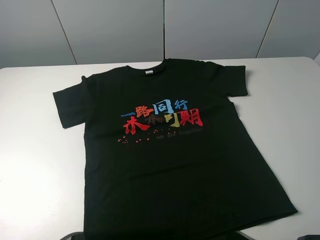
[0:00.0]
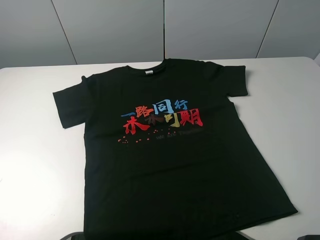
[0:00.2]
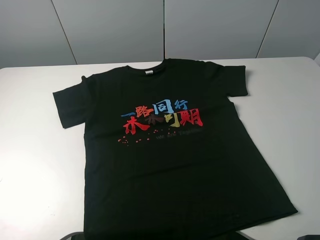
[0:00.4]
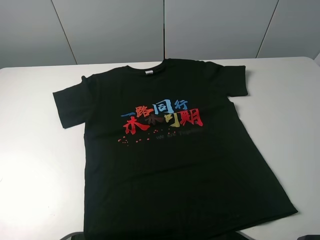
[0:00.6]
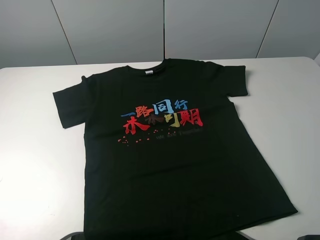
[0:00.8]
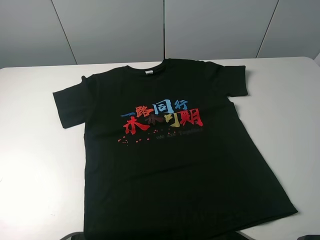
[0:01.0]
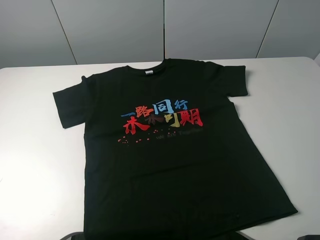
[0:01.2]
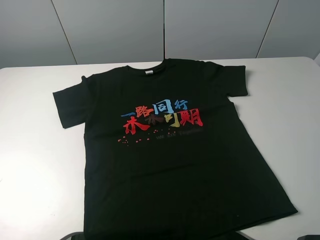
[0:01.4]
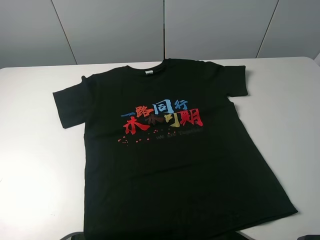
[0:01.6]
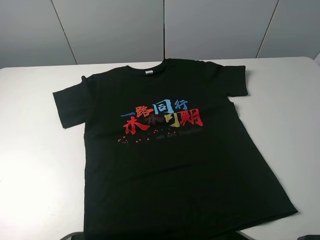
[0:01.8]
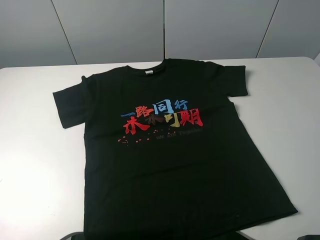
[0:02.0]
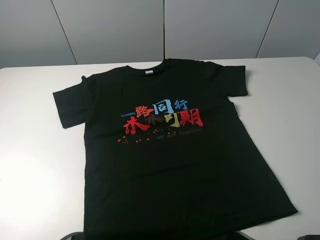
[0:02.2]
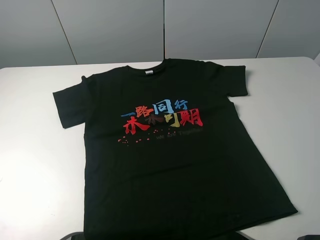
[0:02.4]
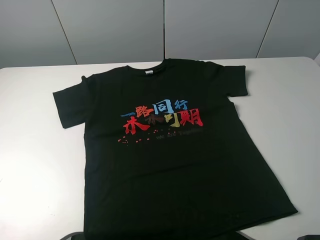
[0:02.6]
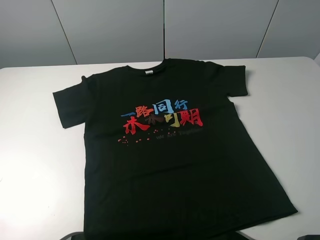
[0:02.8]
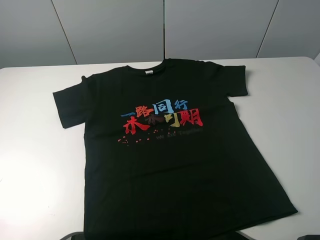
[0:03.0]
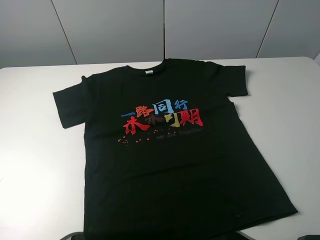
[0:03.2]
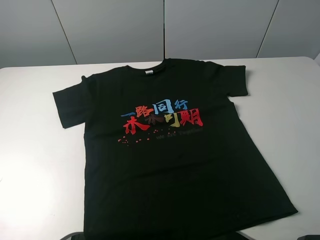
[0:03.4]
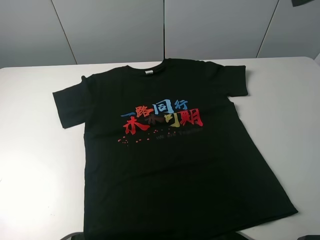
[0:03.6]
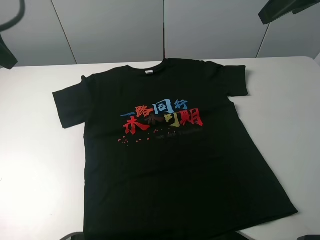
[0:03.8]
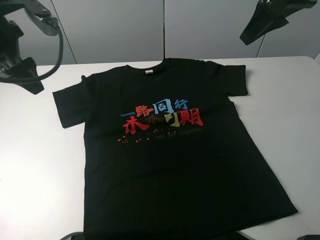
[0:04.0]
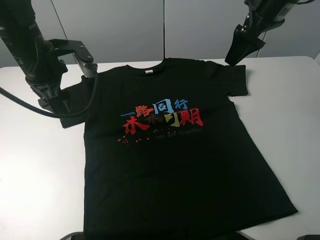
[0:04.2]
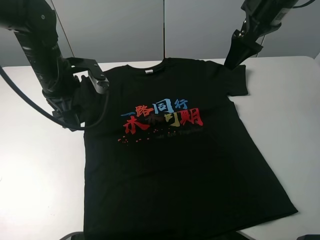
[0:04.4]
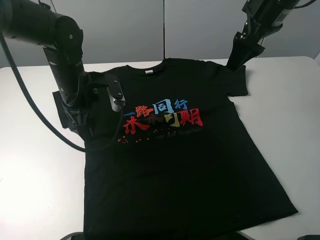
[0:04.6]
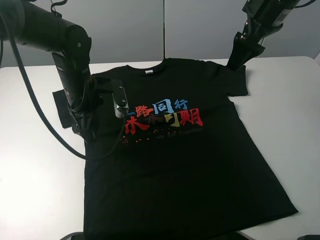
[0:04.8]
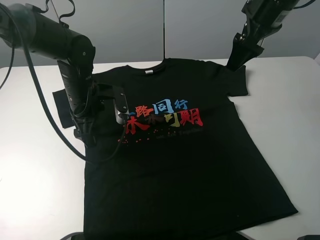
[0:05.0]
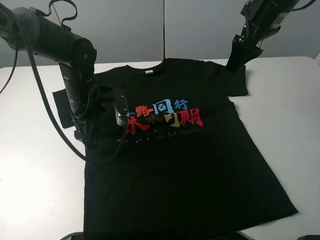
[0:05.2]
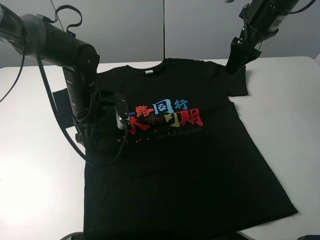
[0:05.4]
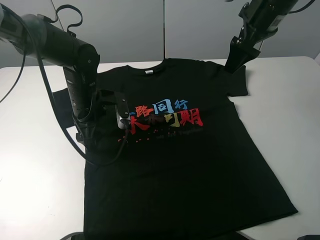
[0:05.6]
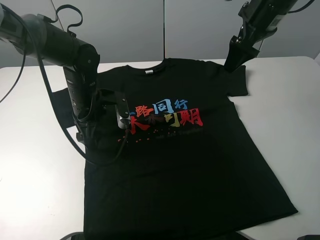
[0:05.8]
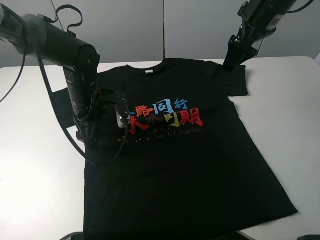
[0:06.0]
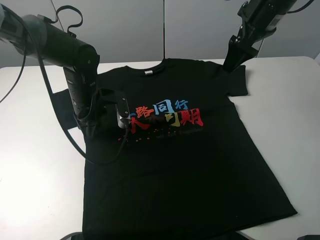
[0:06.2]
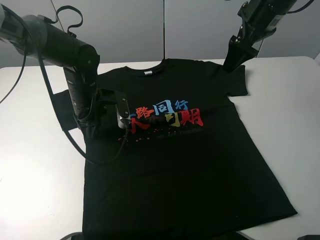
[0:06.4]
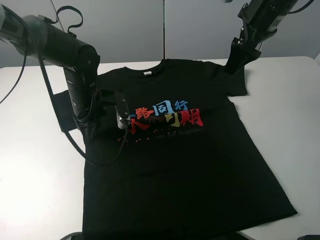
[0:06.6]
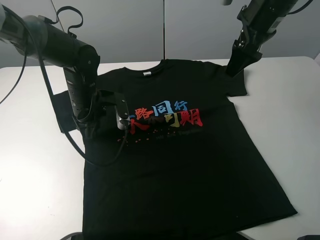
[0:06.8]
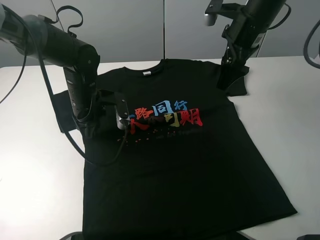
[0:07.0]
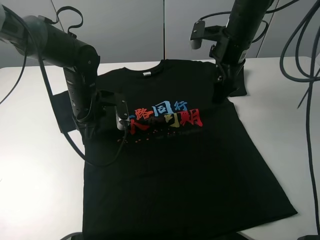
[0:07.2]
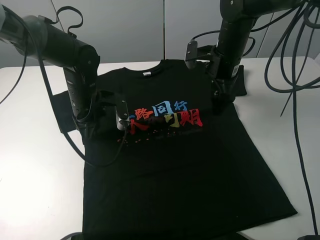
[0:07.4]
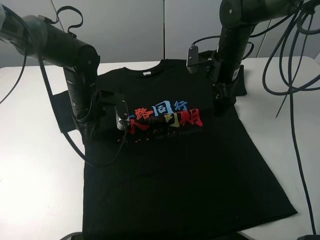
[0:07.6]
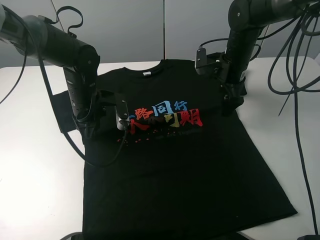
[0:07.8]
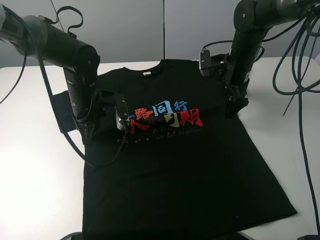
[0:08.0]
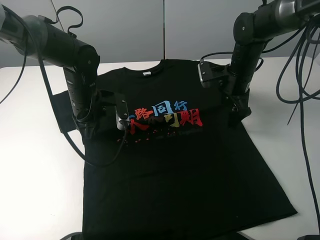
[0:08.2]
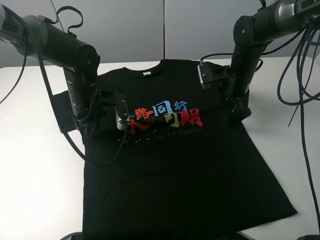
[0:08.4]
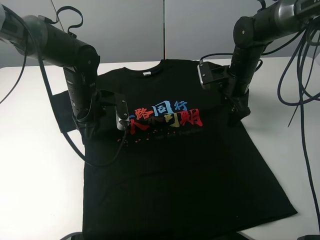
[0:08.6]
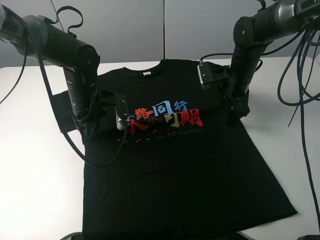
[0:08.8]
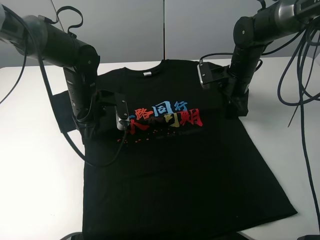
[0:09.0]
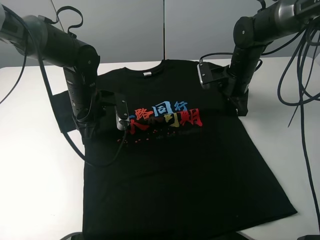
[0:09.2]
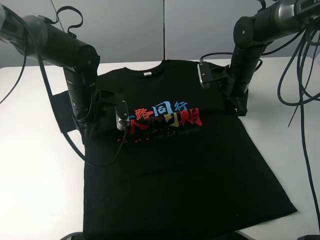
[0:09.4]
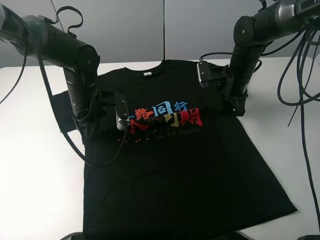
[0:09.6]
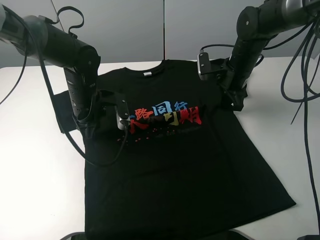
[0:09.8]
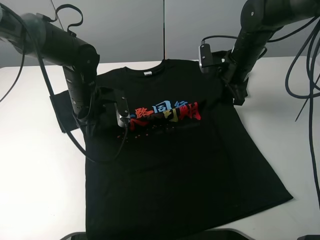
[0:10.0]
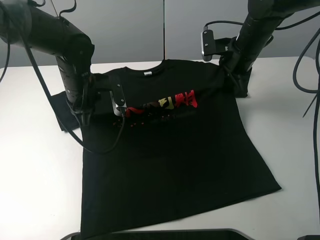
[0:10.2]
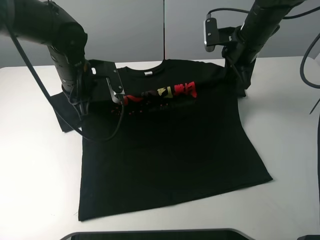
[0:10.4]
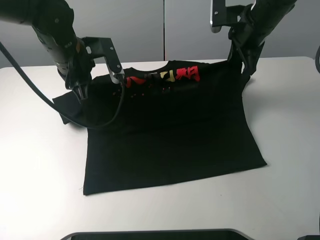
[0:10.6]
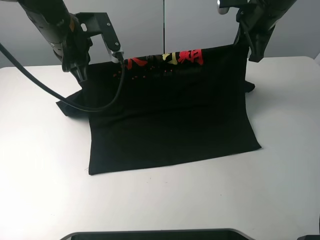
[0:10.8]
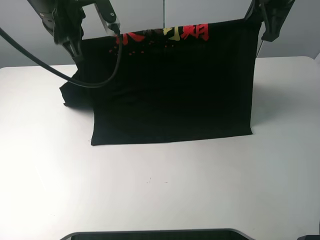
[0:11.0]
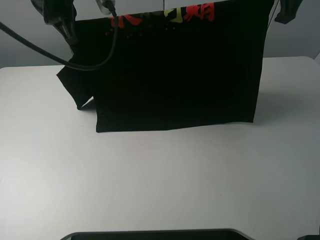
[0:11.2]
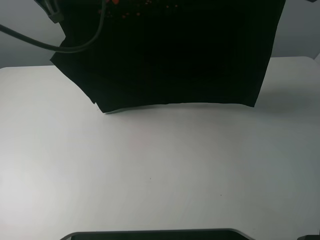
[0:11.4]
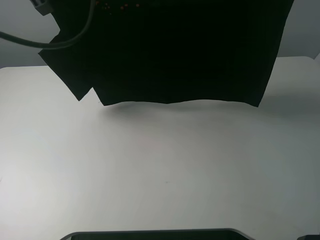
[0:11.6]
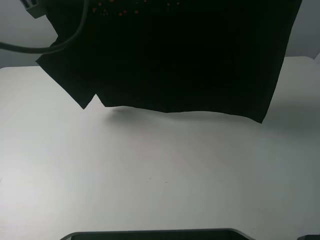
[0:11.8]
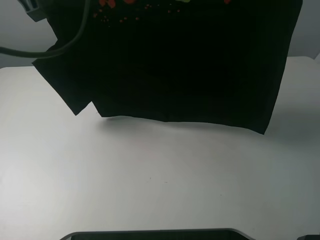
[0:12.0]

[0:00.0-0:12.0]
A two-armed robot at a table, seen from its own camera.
Task of the whole recording: fold the clothes on the table.
Step, 0:00.0 to 0:06.4: Lift the black T-shirt with the left gripper.
0:00.0 to 0:01.6: Both grippers stay put.
0:03.0 to 0:04.4: The right gripper shifts about 30 cm forward, while the left gripper travels forward, downward and to the right by about 35 cm.
0:04.4 to 0:06.0: The left gripper heads downward, covering some 5 cm.
0:06.0 to 0:07.6: The right gripper goes approximately 15 cm downward. Meanwhile the left gripper closes its fingers.
0:07.6 to 0:09.0: The right gripper closes its fingers.
0:09.0 to 0:10.4: Both grippers move upward, about 10 cm.
0:10.4 to 0:12.0: The left gripper heads upward, covering roughly 20 cm. The right gripper goes some 25 cm upward and backward.

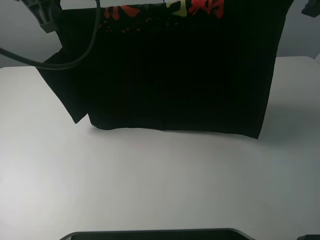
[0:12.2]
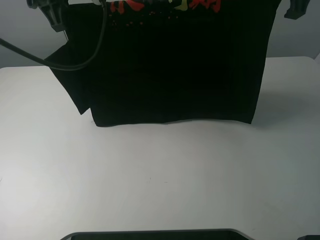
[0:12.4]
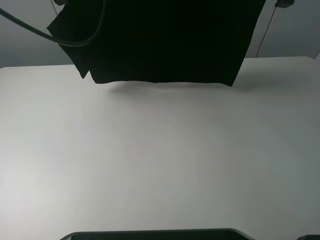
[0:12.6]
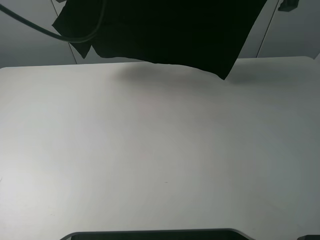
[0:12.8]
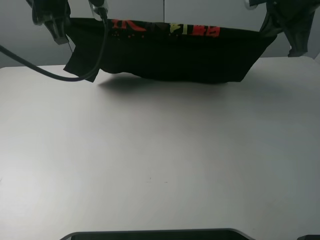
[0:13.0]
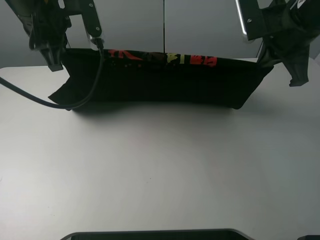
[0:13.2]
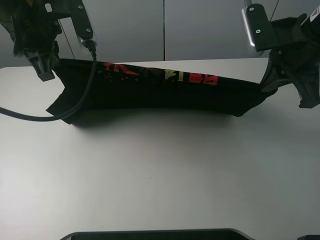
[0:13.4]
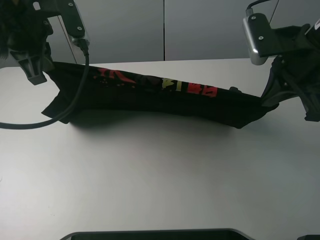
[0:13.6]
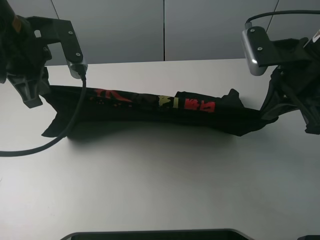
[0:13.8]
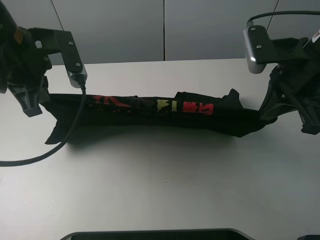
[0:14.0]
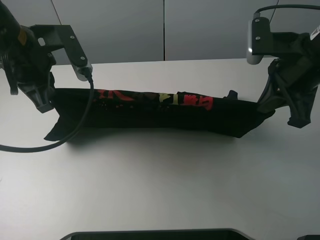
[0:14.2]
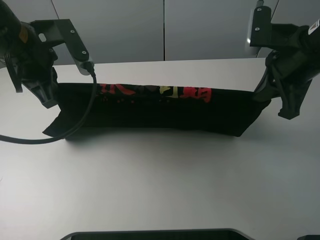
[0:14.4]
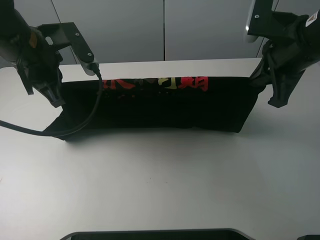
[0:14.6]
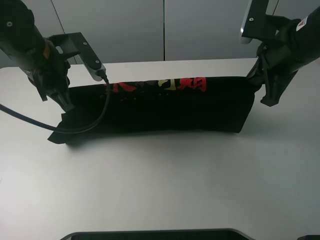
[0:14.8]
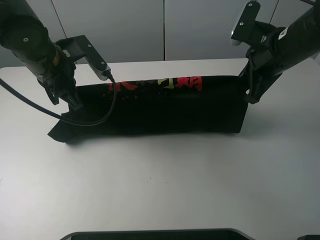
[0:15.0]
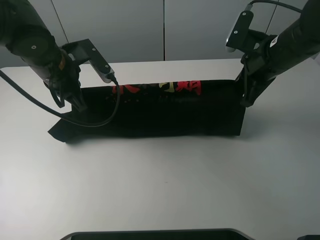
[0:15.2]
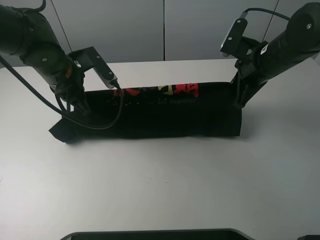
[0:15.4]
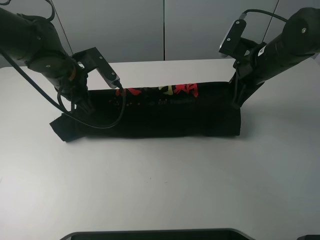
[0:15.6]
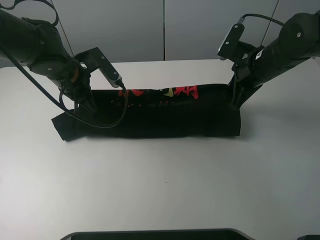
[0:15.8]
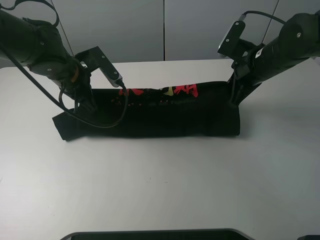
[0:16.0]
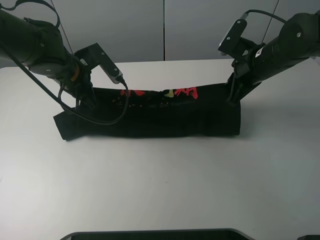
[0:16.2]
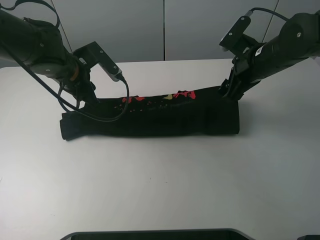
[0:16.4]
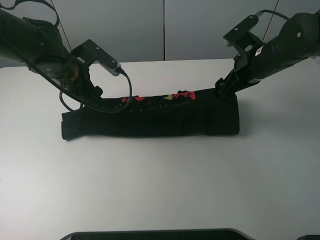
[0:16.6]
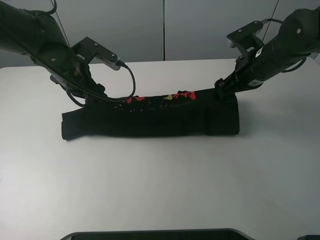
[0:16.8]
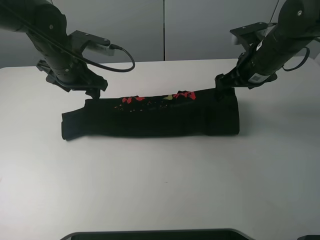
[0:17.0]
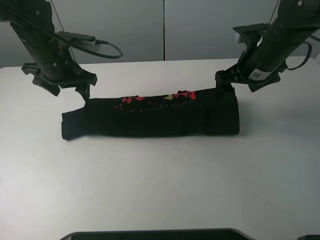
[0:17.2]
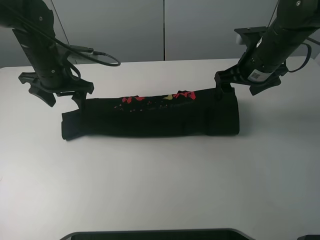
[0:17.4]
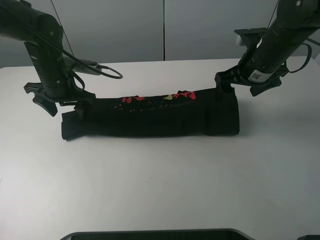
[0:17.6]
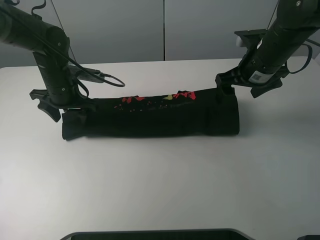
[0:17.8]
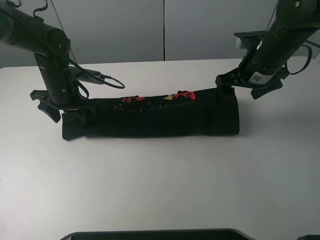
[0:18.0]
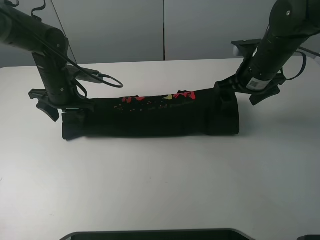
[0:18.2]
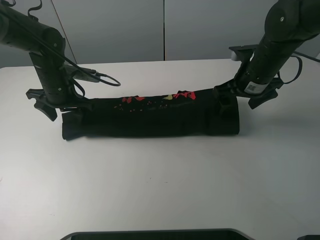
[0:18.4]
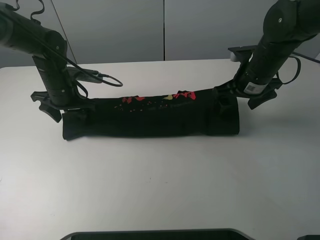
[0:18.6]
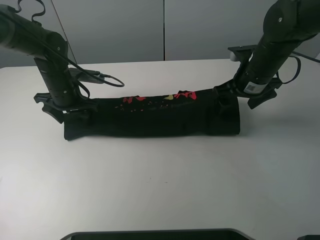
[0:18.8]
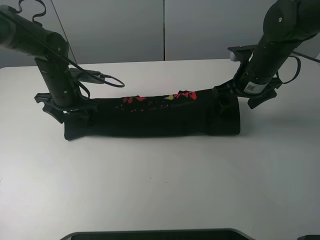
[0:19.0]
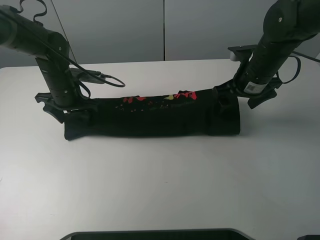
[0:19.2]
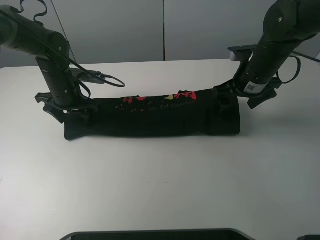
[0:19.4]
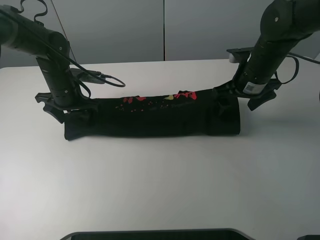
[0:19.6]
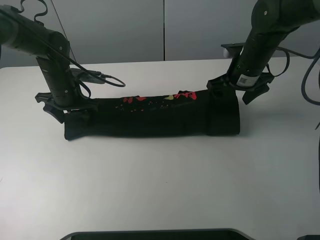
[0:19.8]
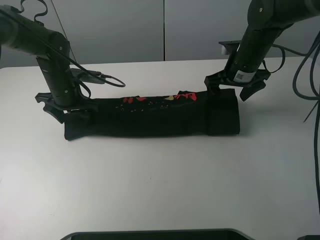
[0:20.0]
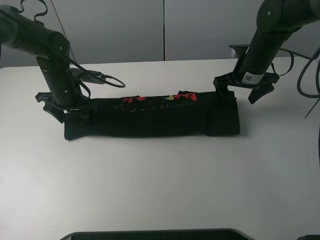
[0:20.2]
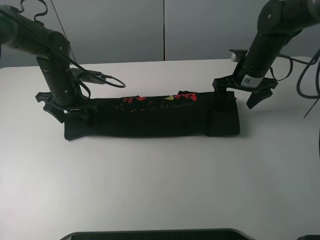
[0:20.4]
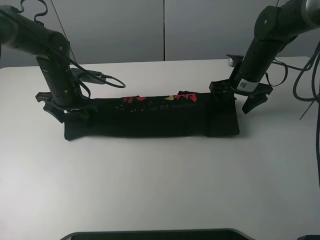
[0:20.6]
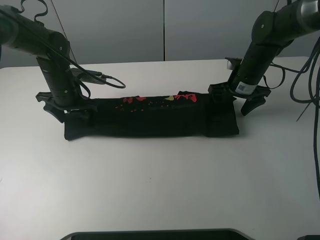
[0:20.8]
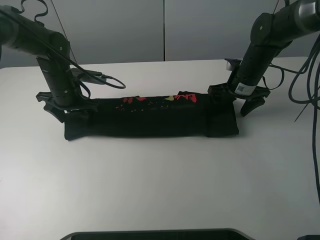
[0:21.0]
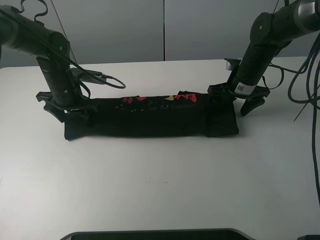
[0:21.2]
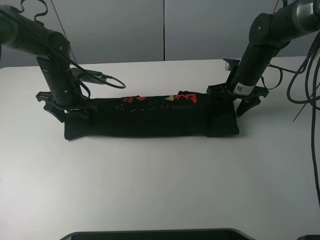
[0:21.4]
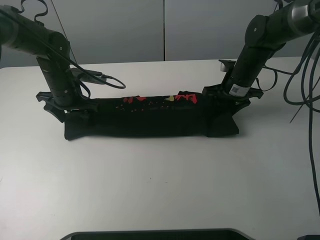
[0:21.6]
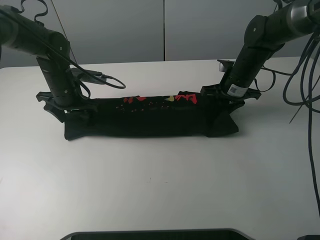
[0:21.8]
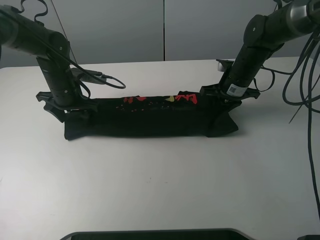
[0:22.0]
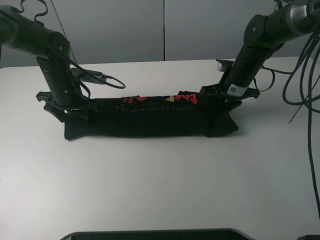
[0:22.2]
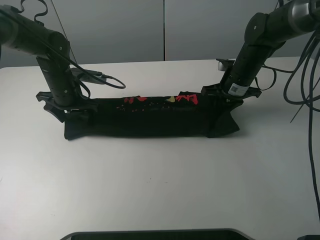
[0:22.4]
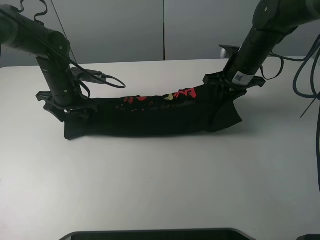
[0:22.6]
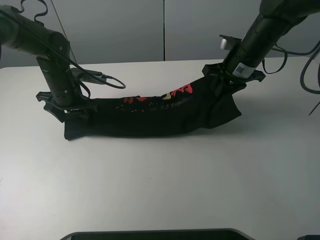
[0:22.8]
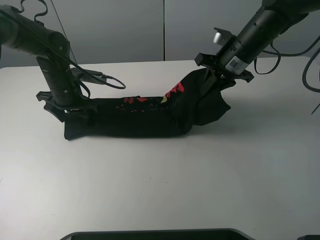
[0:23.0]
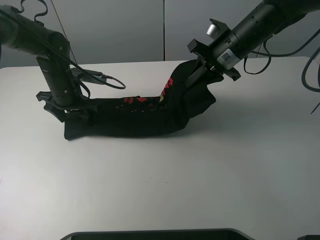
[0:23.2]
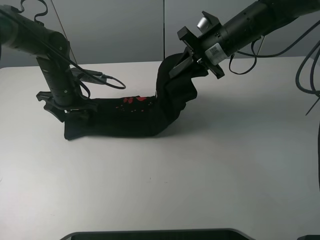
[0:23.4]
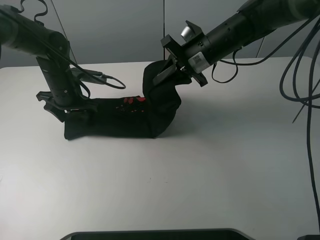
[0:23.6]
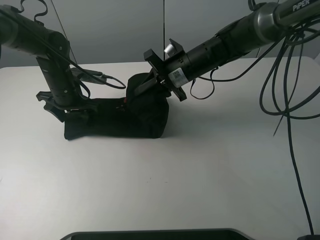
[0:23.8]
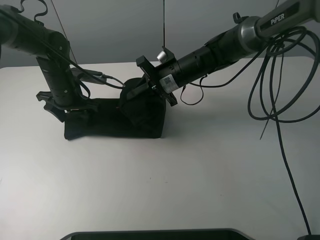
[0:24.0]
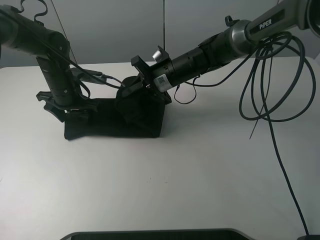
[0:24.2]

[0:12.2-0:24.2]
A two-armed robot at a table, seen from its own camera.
Task of the whole recording: fold the clothes on the table.
Step, 0:12.2 to 0:16.8: Fold the black T-shirt downward with the left gripper.
Step, 0:17.0 to 0:22.0: Grasp the black T-shirt with the right gripper.
0:12.2 to 0:13.8: The grippers both shift downward and backward by some 15 cm.
0:13.8 to 0:15.2: The right gripper goes roughly 10 cm forward and downward; the left gripper moves downward and forward, approximately 10 cm.
0:15.2 to 0:16.6: The right gripper opens, while the left gripper opens its fingers.
0:16.6 to 0:18.2: The left gripper ends up roughly 5 cm from where it was.
0:18.2 to 0:19.8: The grippers make only small movements.
0:19.8 to 0:21.2: The right gripper shifts by approximately 5 cm.
0:21.2 to 0:22.6: The right gripper moves some 5 cm, and closes up.
0:22.6 to 0:24.2: The right gripper goes some 15 cm to the left.
